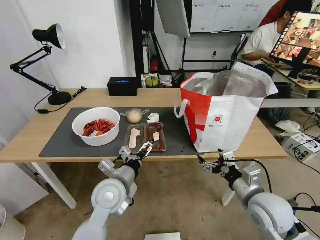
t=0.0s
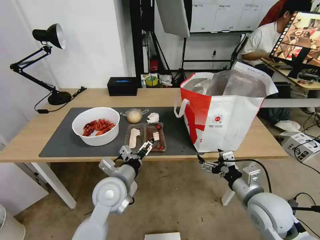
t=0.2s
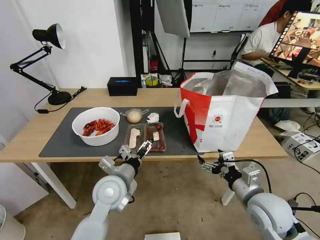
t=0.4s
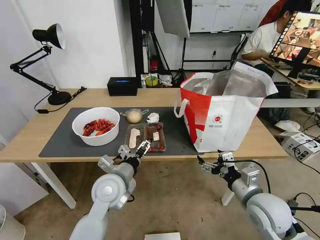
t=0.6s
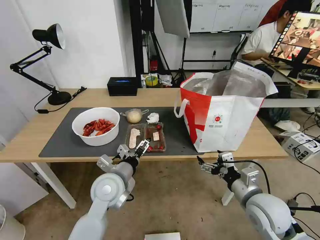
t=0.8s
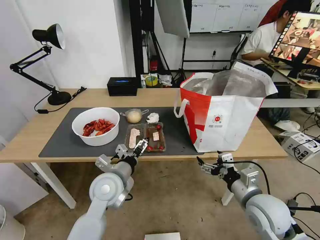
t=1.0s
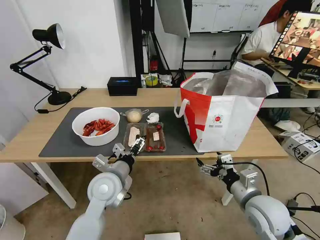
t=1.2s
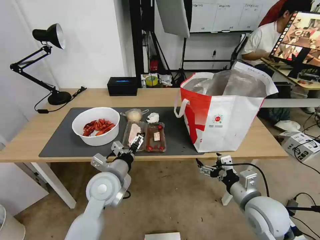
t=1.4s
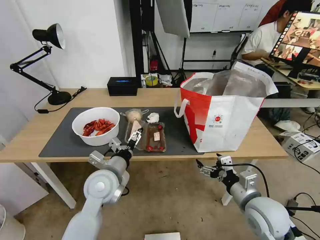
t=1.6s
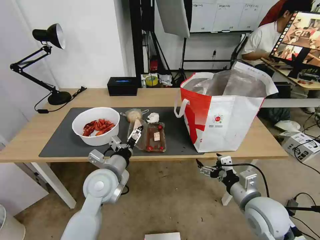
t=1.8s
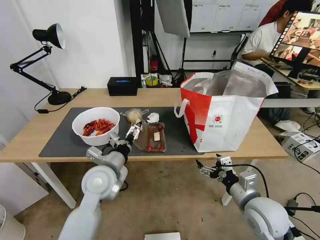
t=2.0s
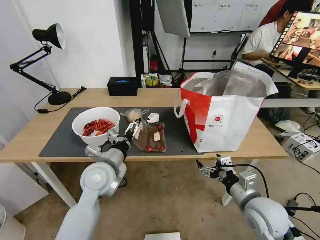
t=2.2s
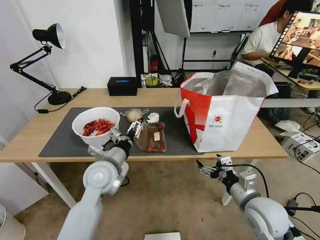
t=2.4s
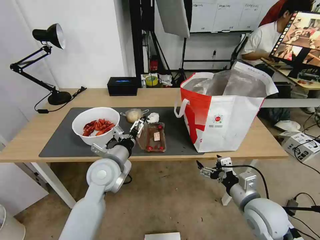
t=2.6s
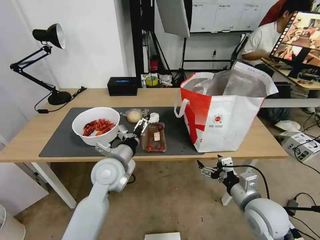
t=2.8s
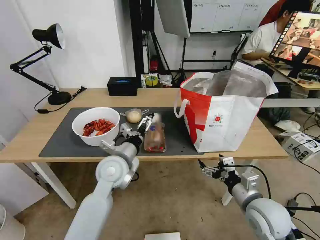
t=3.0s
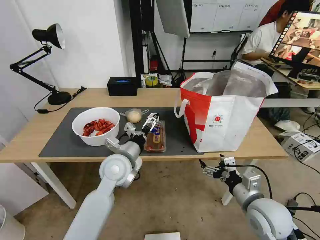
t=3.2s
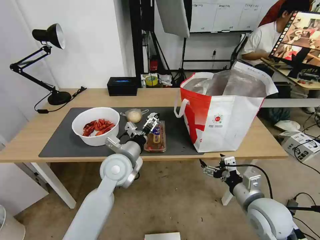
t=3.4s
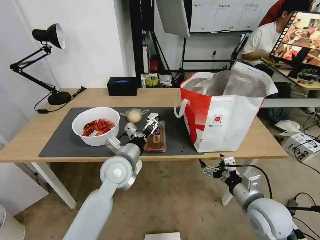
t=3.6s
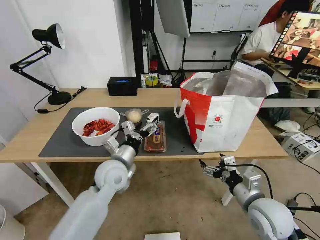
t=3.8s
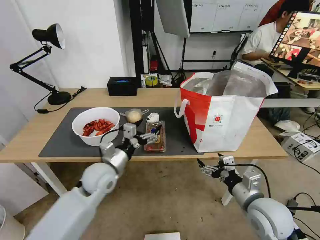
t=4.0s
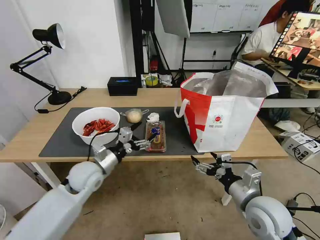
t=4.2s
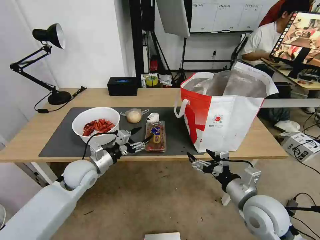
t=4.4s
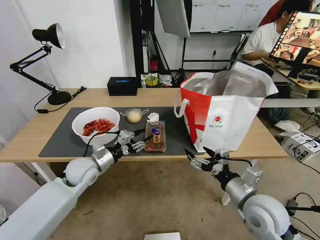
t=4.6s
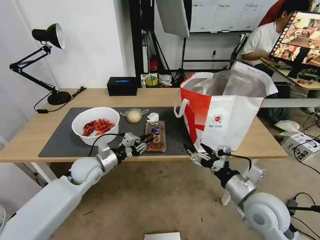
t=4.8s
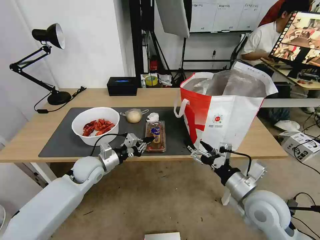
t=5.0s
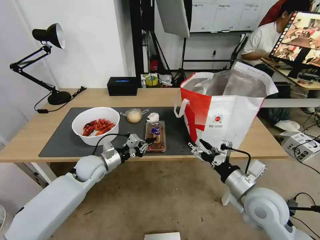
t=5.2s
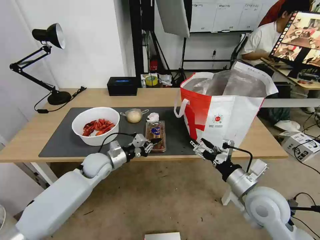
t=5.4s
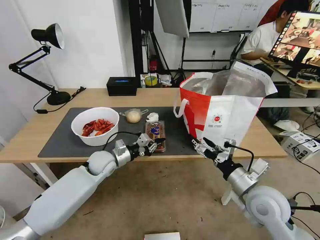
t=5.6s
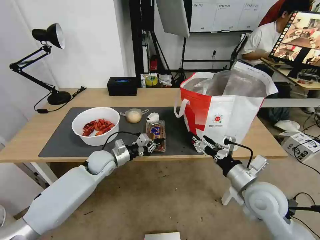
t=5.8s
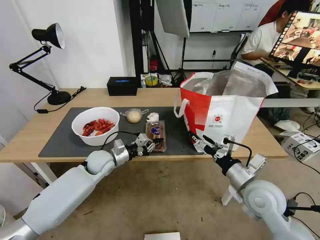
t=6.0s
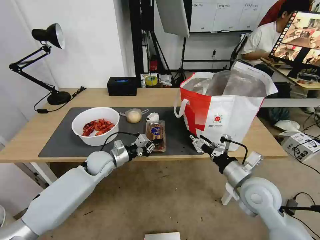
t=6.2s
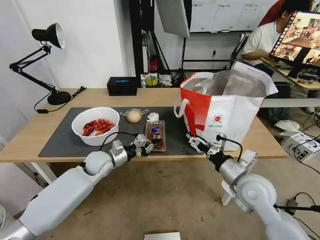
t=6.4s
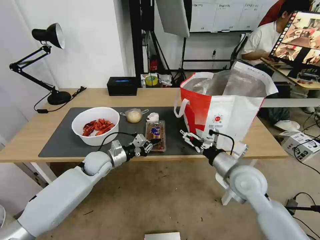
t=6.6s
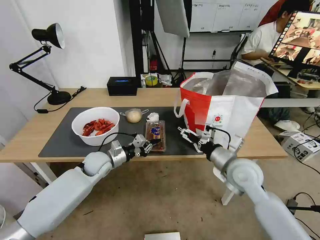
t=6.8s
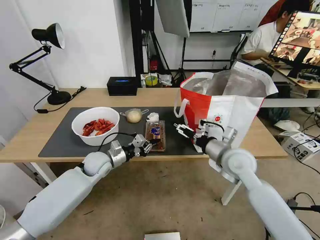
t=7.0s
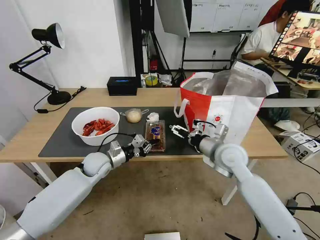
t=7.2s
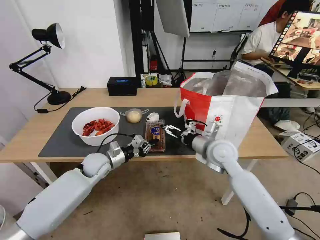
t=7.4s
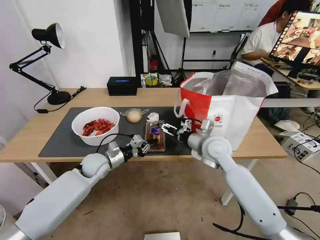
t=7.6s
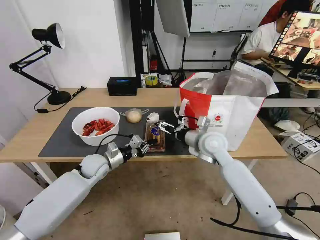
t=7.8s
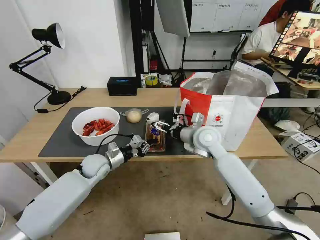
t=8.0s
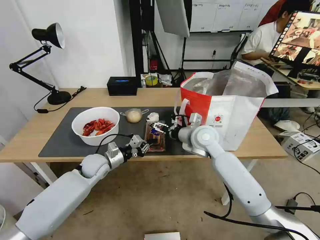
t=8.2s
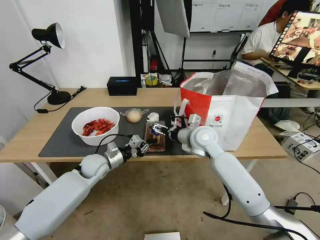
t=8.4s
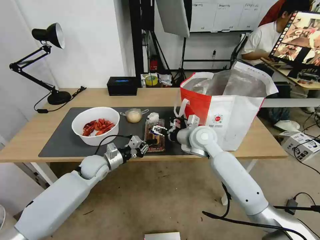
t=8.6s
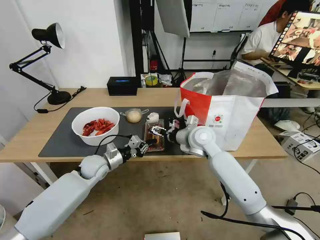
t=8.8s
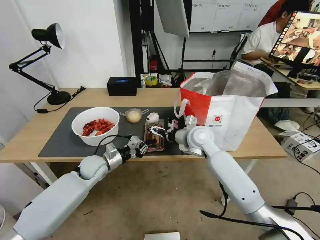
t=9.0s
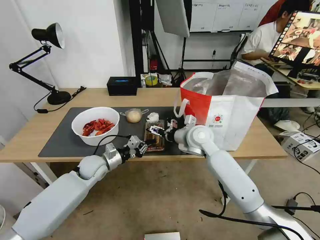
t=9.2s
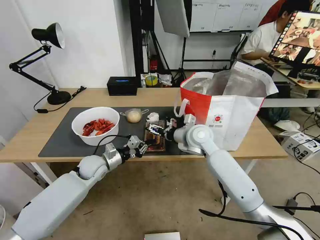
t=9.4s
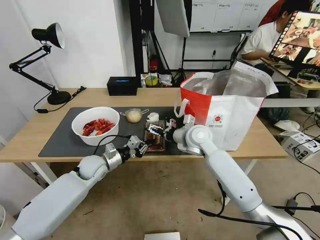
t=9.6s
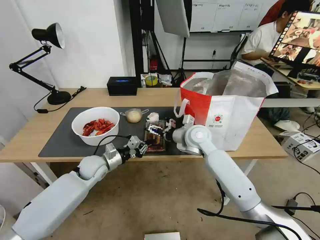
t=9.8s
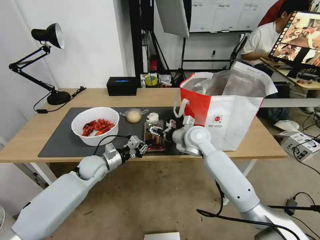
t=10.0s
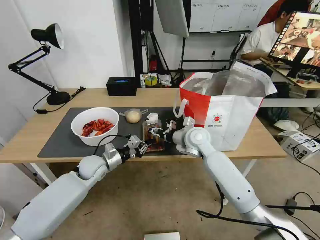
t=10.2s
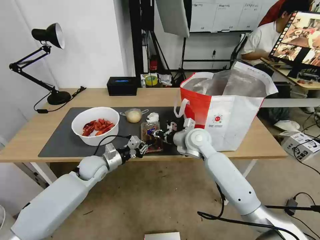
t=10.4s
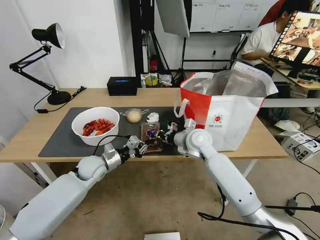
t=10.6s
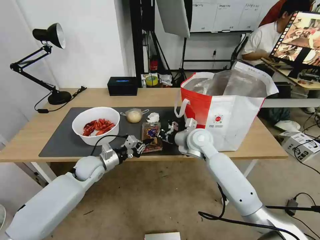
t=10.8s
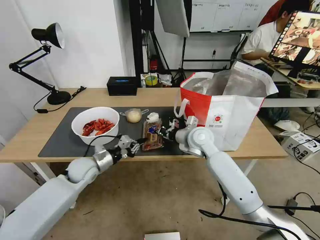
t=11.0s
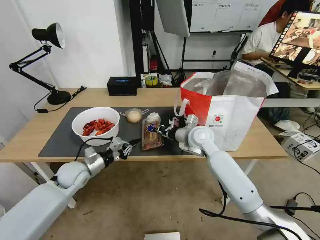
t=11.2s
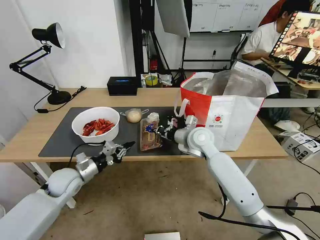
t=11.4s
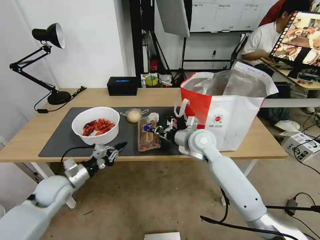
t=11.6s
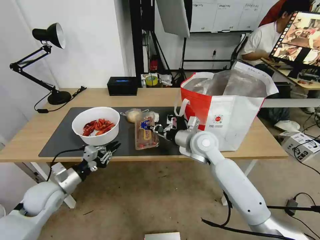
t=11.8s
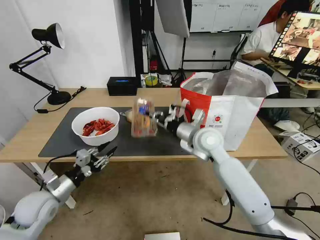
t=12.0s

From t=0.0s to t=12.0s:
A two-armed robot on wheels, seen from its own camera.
Task of the whole recording: Pick up the trash from the table and place it into the takeout bag.
From t=0.0s to t=1.6s: There are only small adjustments of the grippers.
From t=1.6s to t=3.0s: The left gripper shifts by approximately 5 cm.
From t=3.0s to t=4.4s: The left gripper goes some 10 cm to the left.
From t=4.4s to t=6.0s: The left gripper shifts approximately 5 cm forward, and closes.
From t=6.0s to t=7.6s: The right gripper moves forward and to the left, some 15 cm.
From t=7.6s to t=9.0s: The right gripper moves about 5 cm.
From t=9.0s to t=10.4s: The right gripper closes up.
From t=10.4s to t=12.0s: The left gripper shifts about 15 cm backward and to the left, and opens its fingers. Meanwhile the right gripper moves some 5 cm.

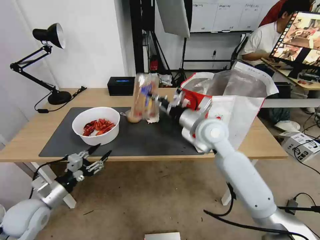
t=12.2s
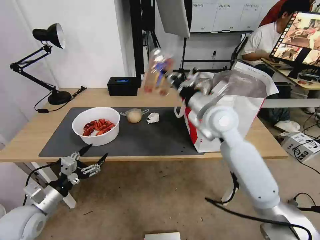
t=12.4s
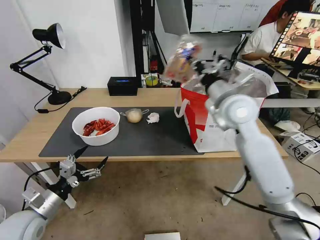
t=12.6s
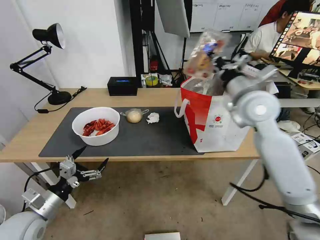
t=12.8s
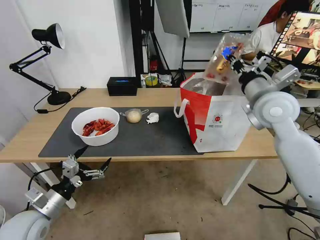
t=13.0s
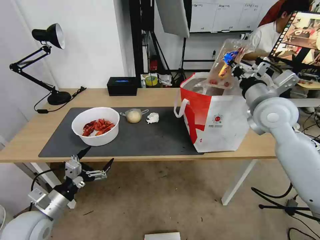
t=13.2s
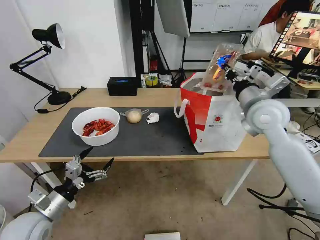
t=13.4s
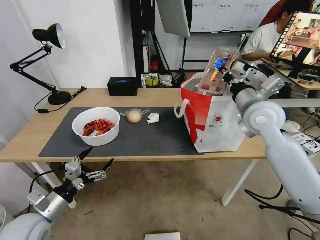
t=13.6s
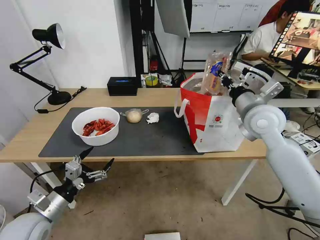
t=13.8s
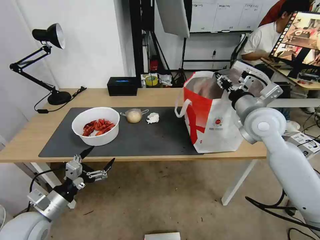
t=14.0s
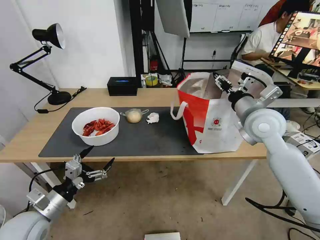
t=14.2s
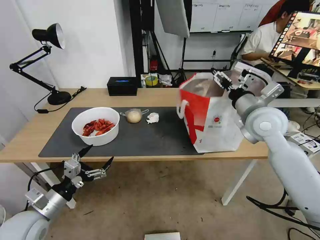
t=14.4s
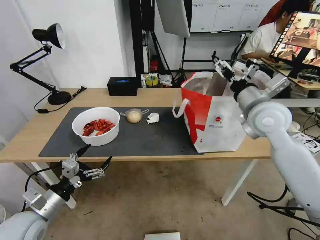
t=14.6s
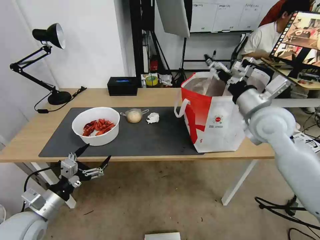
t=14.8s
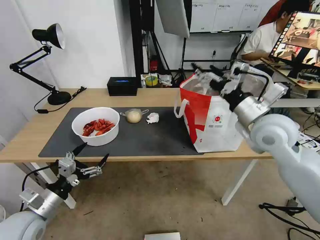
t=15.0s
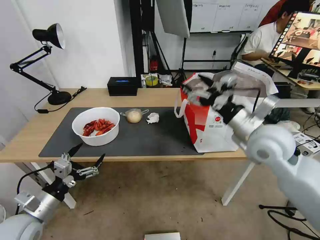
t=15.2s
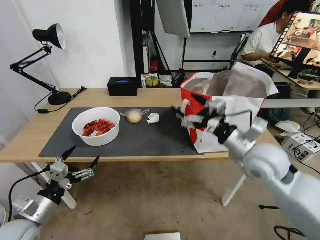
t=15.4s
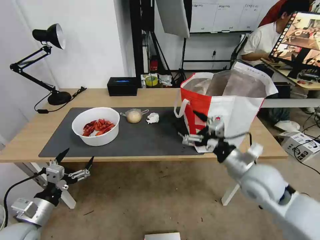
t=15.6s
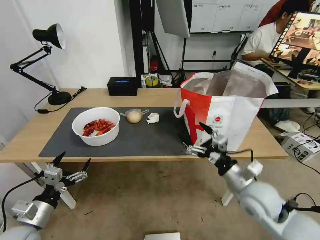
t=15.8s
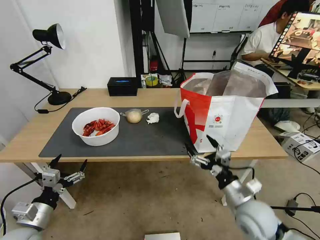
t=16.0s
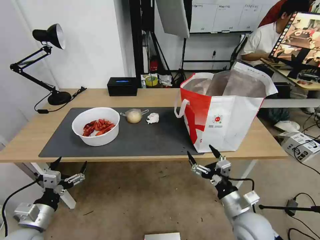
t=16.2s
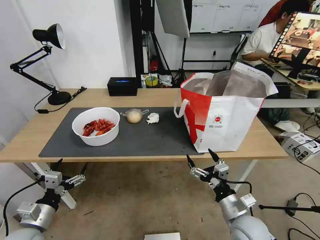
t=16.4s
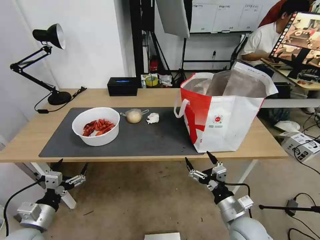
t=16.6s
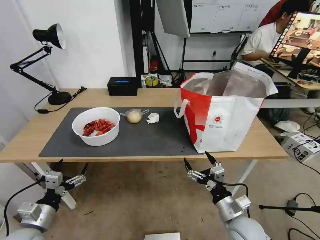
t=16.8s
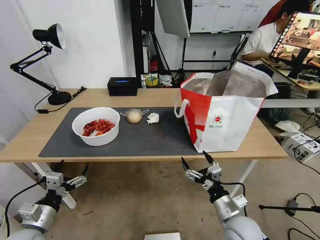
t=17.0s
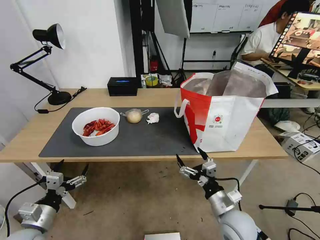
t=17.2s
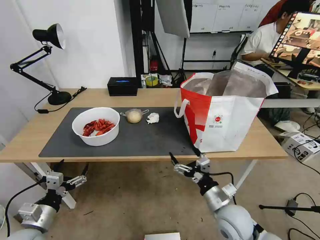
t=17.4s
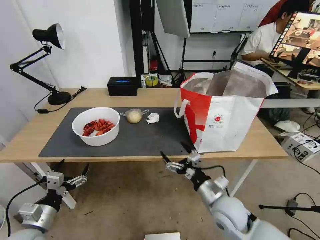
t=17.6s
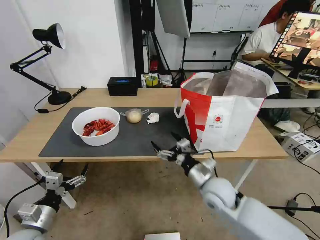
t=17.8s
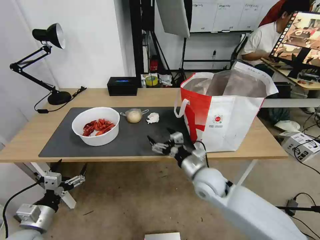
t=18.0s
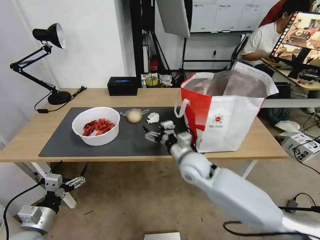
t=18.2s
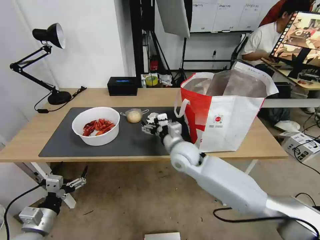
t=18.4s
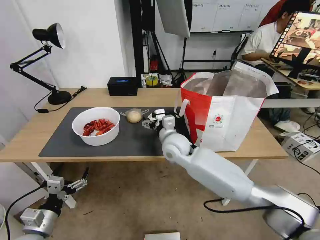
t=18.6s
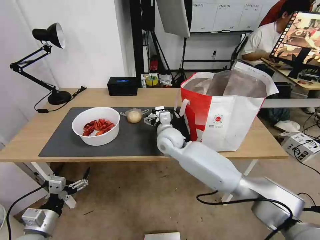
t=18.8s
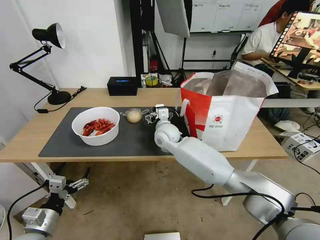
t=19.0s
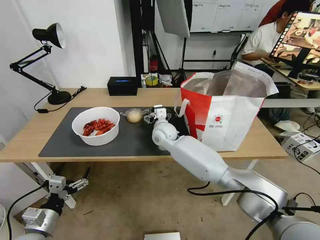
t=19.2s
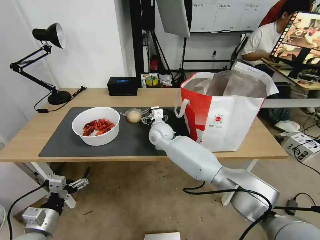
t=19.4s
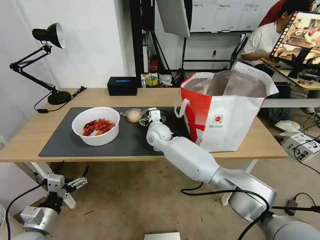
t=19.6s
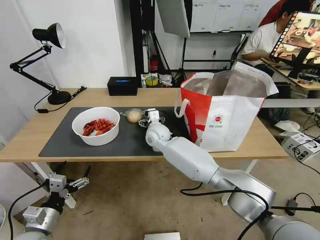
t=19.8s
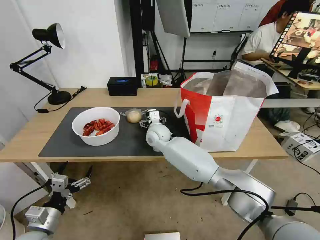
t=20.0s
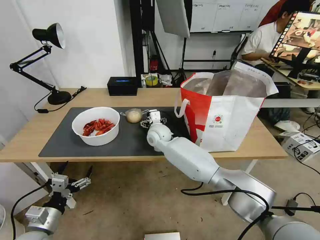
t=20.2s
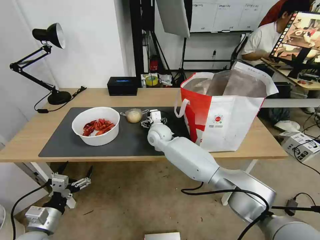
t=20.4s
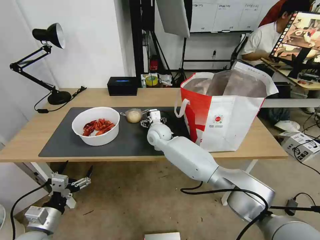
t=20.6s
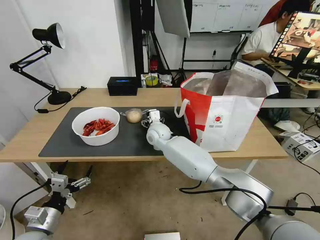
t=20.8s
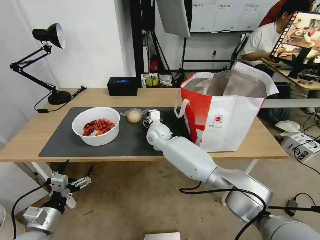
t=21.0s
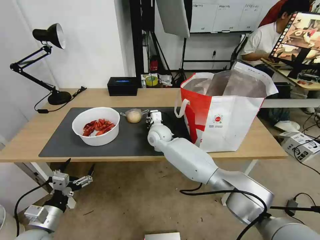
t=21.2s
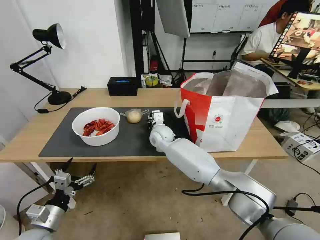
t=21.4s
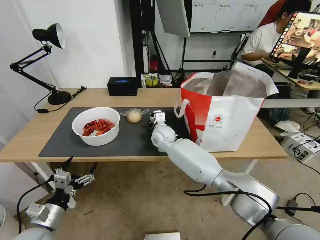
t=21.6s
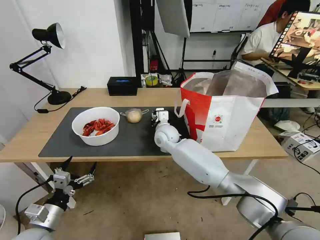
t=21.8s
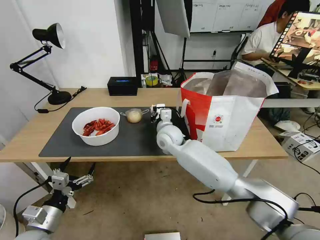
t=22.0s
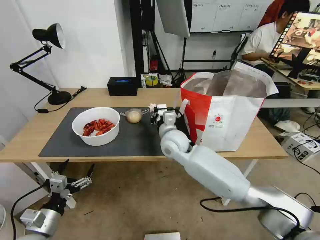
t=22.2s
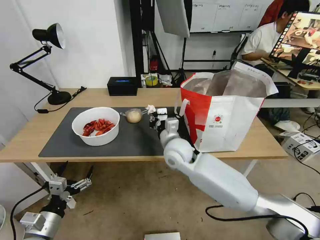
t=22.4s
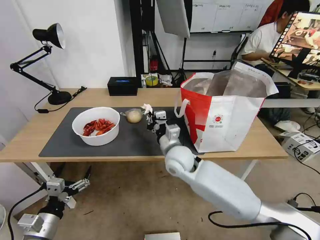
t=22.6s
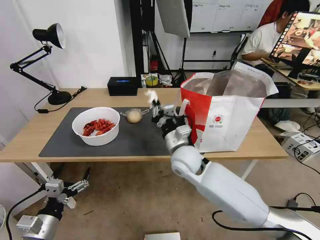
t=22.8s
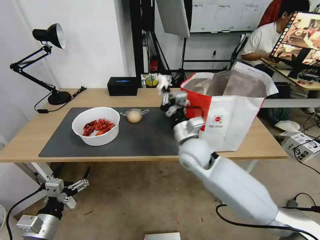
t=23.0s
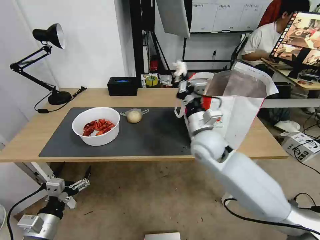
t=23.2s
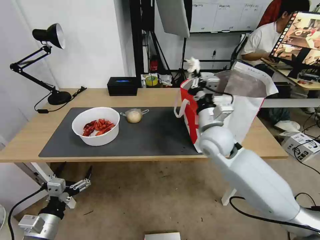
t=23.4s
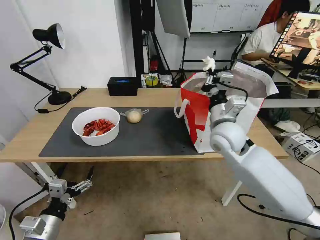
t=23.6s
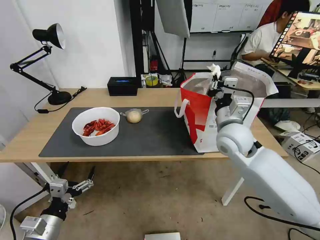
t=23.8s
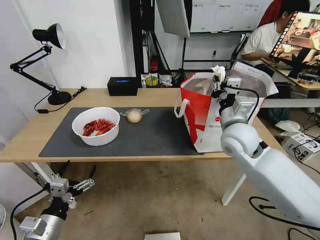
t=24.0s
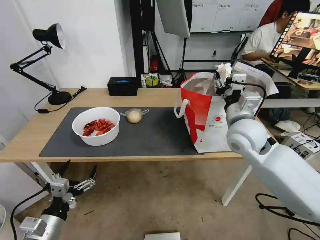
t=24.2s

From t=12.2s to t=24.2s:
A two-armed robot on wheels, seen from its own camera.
Task of the whole recording: Pick up the trash from the table and place it into the takeout bag.
From t=12.2s to t=13.8s: The left gripper opens up. Meanwhile the right gripper moves to the right, approximately 15 cm.
From t=13.8s to t=15.2s: The right gripper goes approximately 5 cm backward, and opens.
From t=15.2s to t=16.6s: The left gripper goes roughly 5 cm downward. The right gripper moves downward and backward, about 30 cm.
From t=16.6s to t=18.2s: The right gripper goes approximately 25 cm forward, to the left and upward.
From t=18.2s to t=19.8s: The right gripper goes about 20 cm forward and to the left.
From t=19.8s to t=21.2s: The right gripper closes up.
From t=21.2s to t=22.6s: The right gripper goes about 15 cm backward and to the right, and closes.
From t=22.6s to t=24.2s: The right gripper moves to the right and upward, approximately 20 cm, and opens its fingers.
